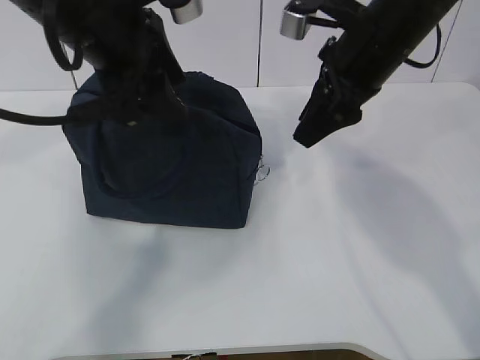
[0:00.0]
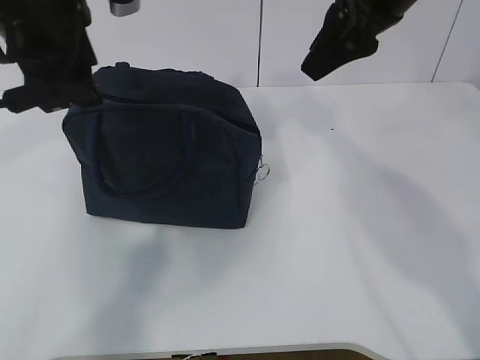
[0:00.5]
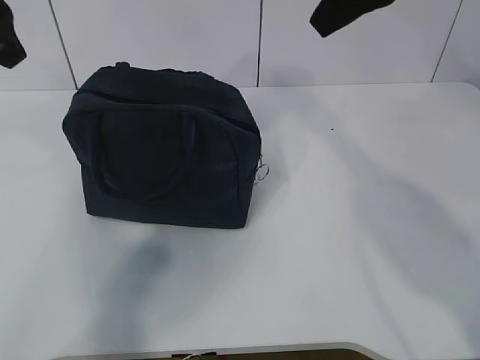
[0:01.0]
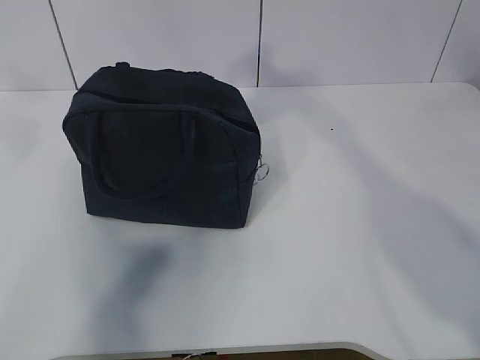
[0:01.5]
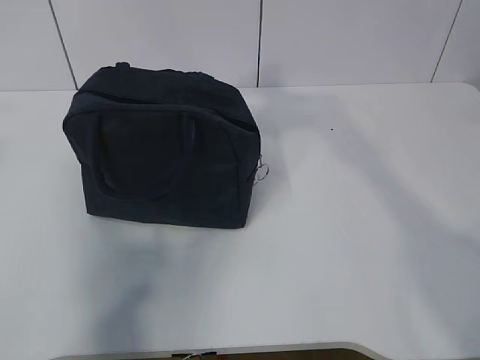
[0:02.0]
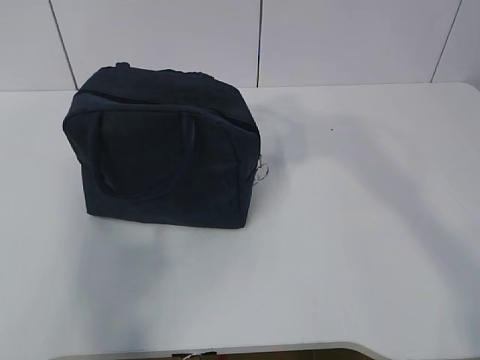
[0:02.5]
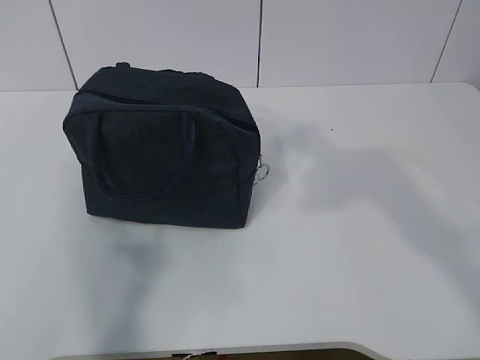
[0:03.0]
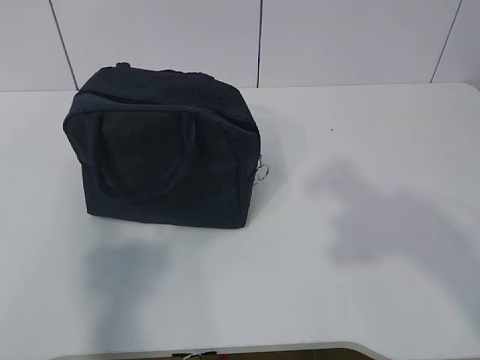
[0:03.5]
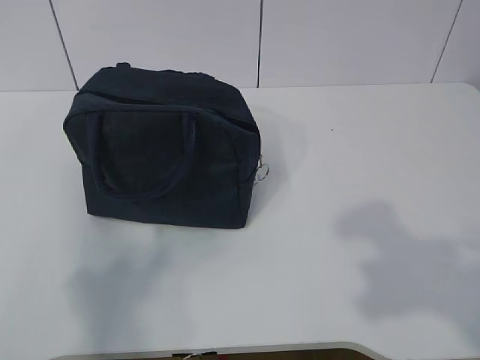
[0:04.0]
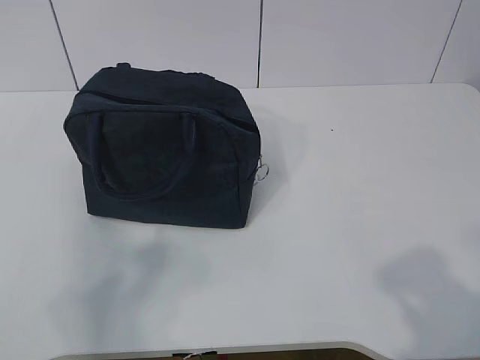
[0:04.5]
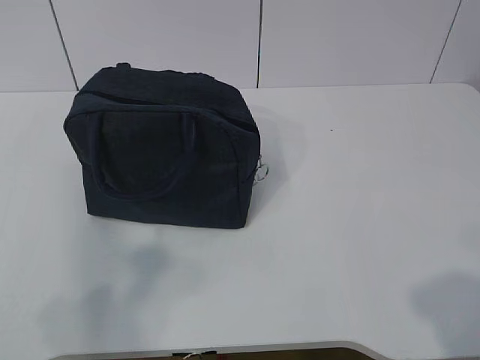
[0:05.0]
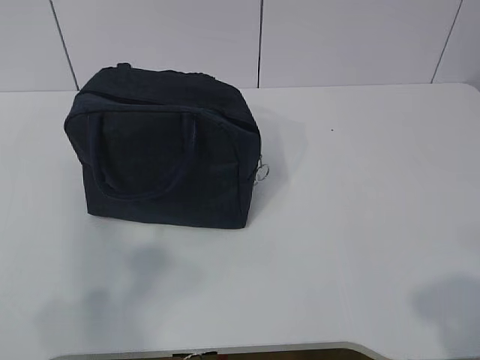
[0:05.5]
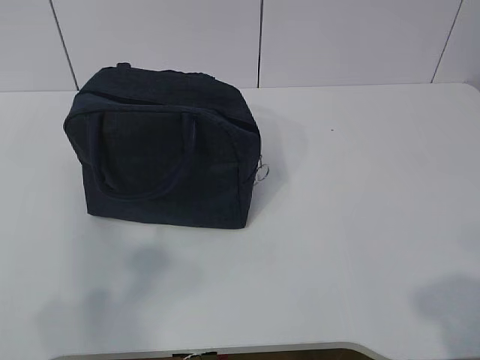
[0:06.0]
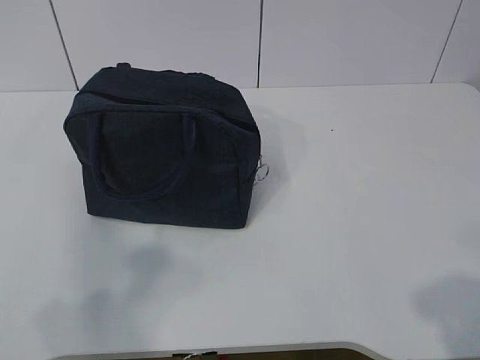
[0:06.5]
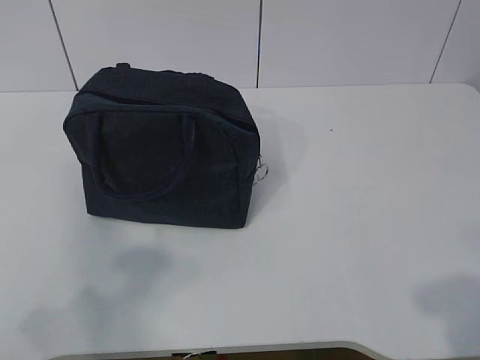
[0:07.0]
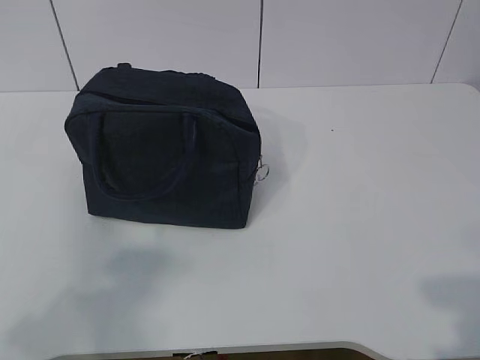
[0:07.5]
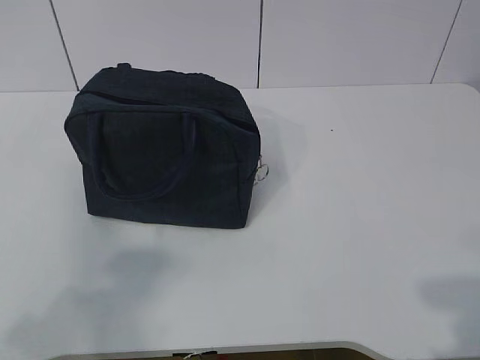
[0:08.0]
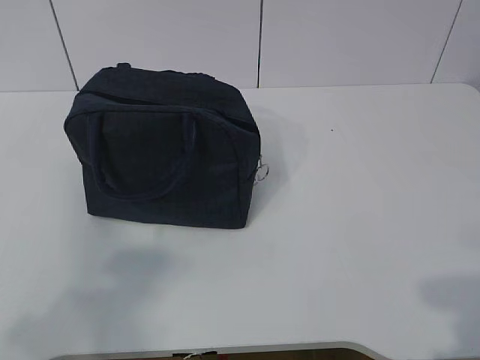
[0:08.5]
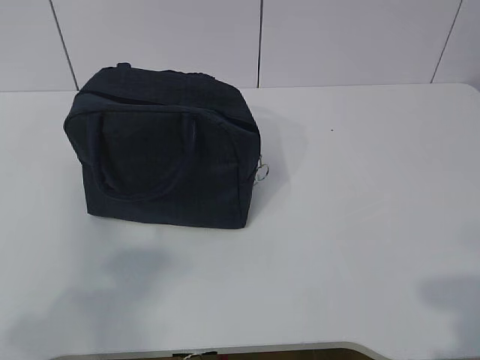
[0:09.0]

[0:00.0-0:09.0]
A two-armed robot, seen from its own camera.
0:00.0 to 0:02.0: The right gripper heads upward and backward, covering roughly 20 cm. Meanwhile the left gripper moves to the left, upward and backward, approximately 25 cm.
0:02.0 to 0:04.5: Both grippers move backward and downward, approximately 25 cm.

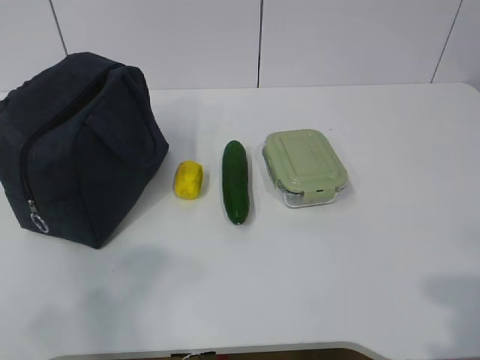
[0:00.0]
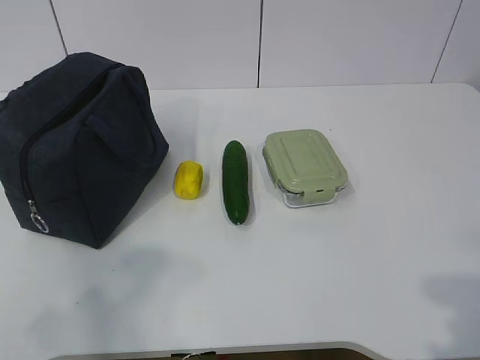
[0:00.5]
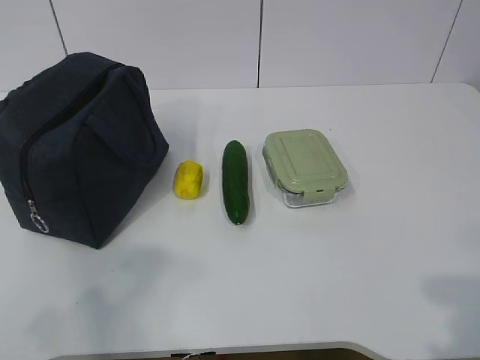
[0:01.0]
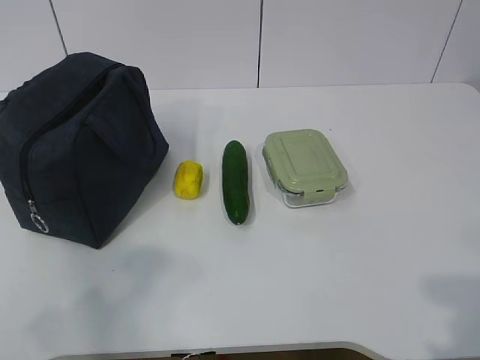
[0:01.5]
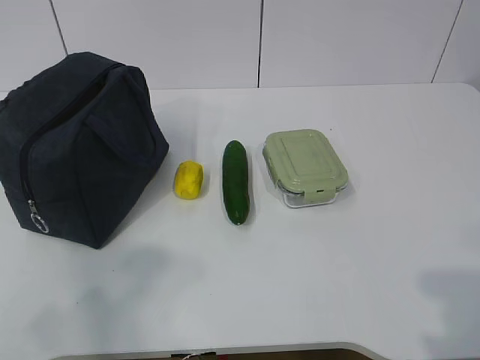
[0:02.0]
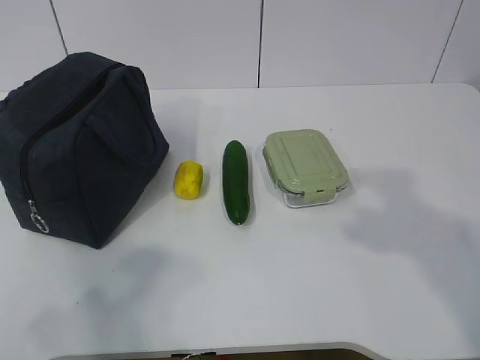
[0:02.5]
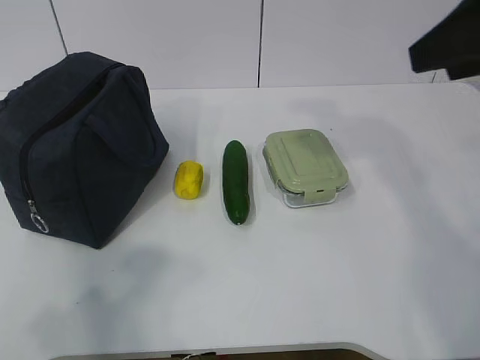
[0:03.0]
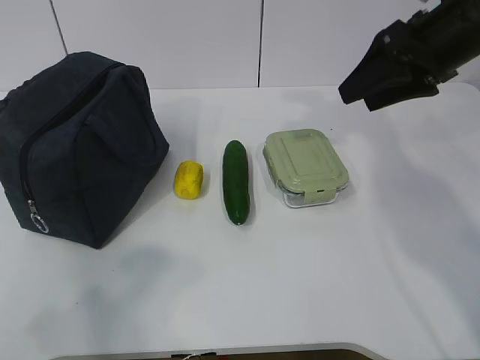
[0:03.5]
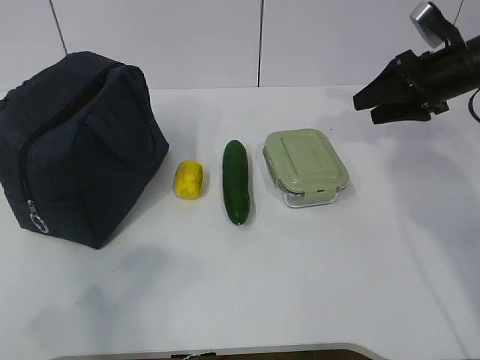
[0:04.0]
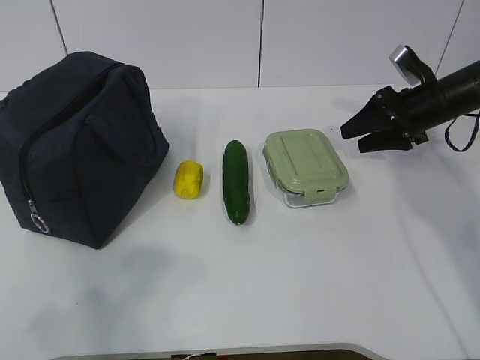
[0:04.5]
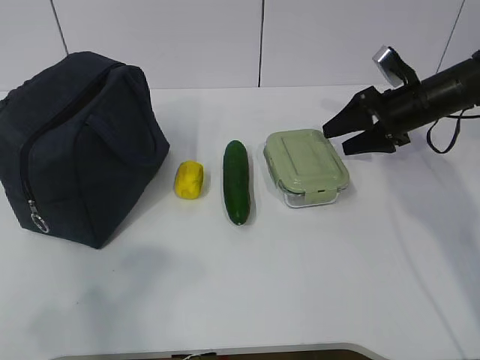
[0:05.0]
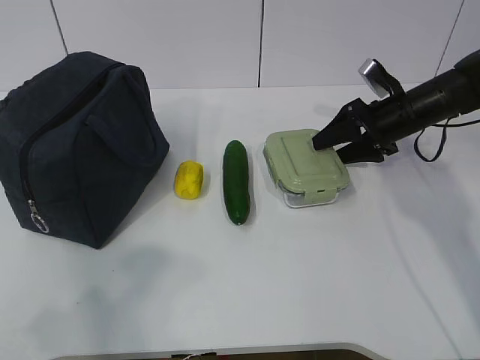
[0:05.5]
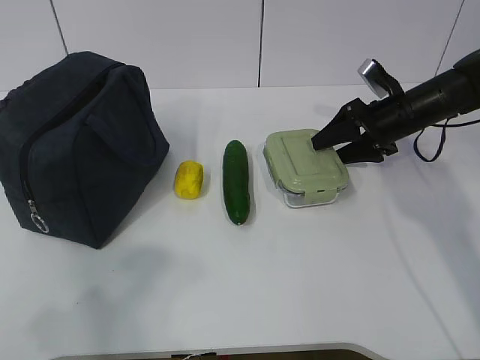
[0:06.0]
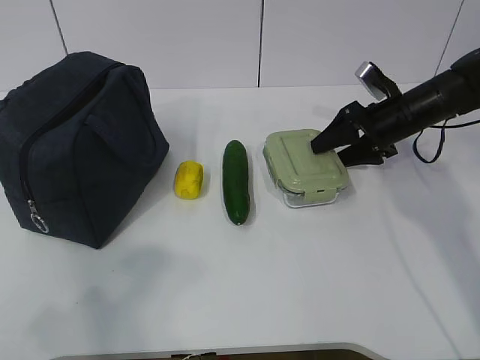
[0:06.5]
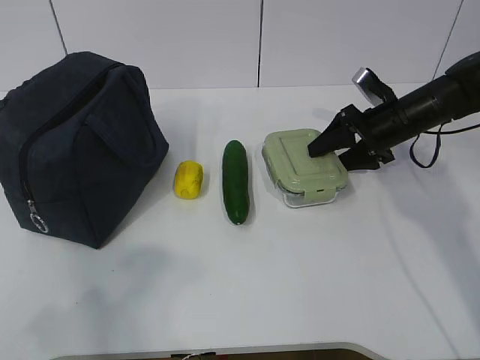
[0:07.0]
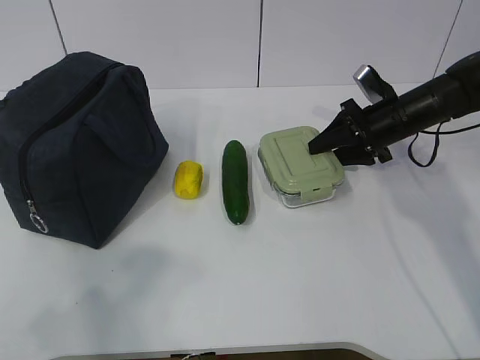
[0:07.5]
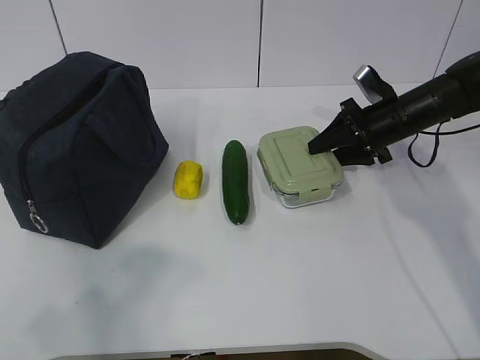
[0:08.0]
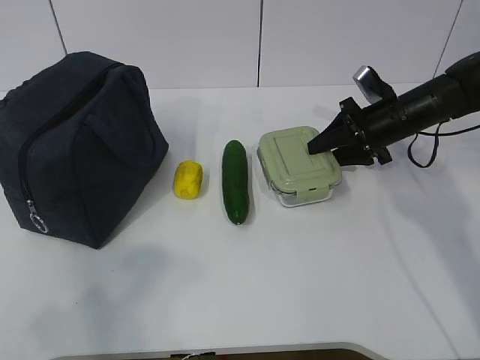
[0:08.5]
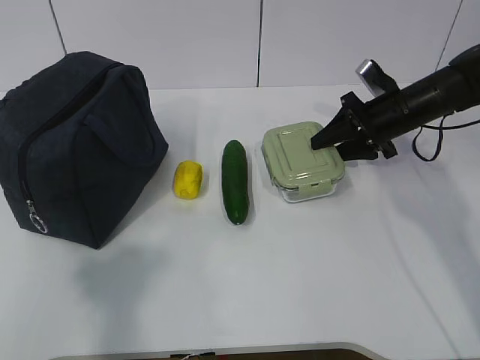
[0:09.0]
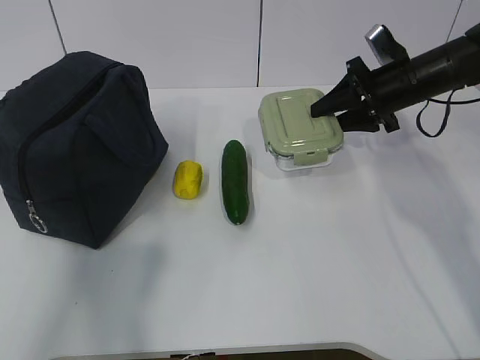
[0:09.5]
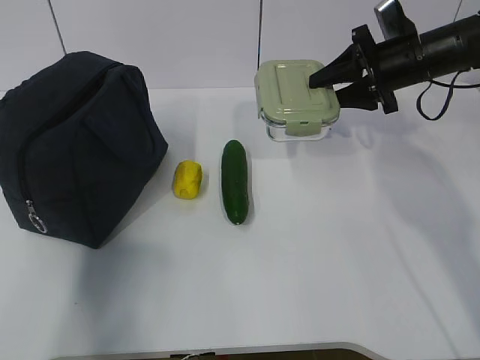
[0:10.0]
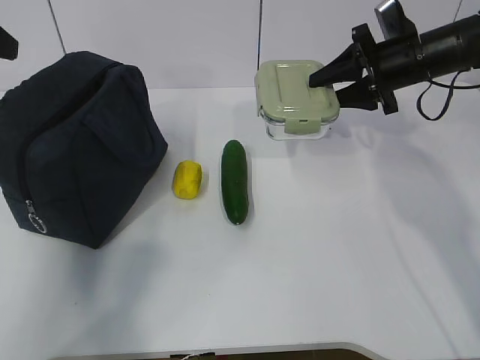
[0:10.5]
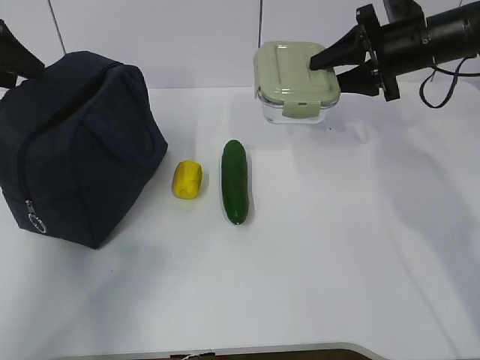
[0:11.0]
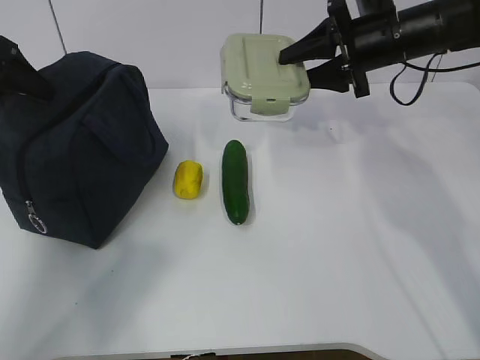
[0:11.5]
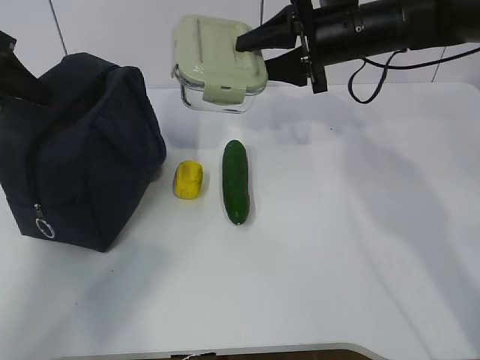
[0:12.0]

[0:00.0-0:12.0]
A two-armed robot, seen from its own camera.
Step, 0:00.0 to 0:07.0: Grab the lunch box with your right hand.
Step, 0:07.5 to 0:10.5: Grab the lunch bag with your left hand.
0:02.0 to 0:04.0: The right gripper travels forward by about 50 cm.
0:04.0 to 0:06.0: The right gripper goes approximately 10 cm downward.
0:06.0 to 0:08.0: The grippers move only a little.
0:08.0 to 0:10.0: The right gripper is displaced upward by approximately 10 cm; the left gripper heads forward, covering some 25 cm.
0:10.0 to 0:12.0: The right gripper goes about 10 cm to the left, while the left gripper is displaced forward and downward by approximately 20 cm, and closes.

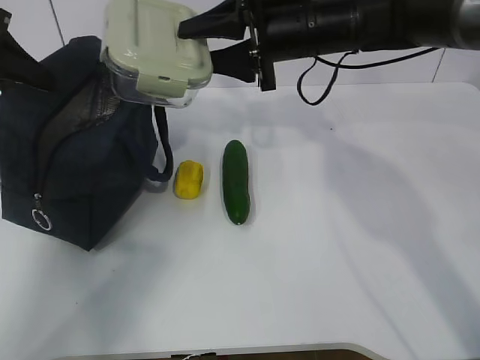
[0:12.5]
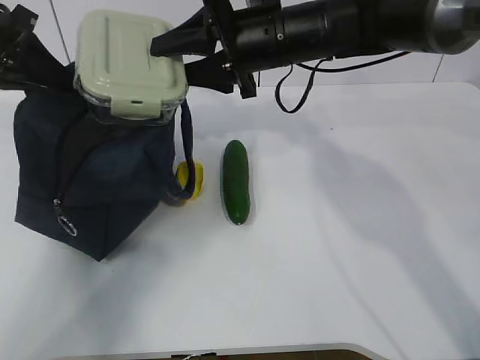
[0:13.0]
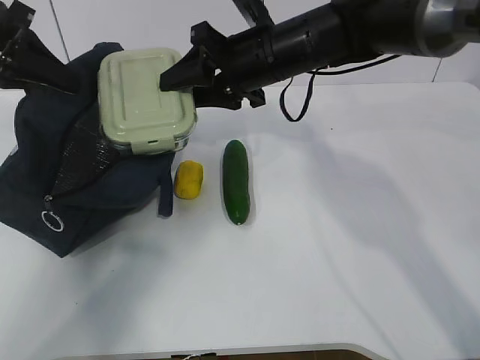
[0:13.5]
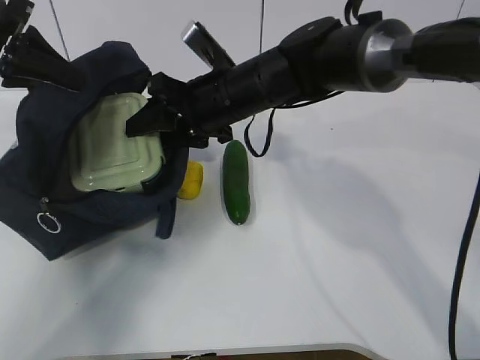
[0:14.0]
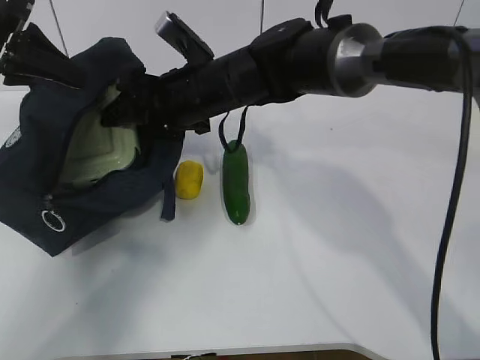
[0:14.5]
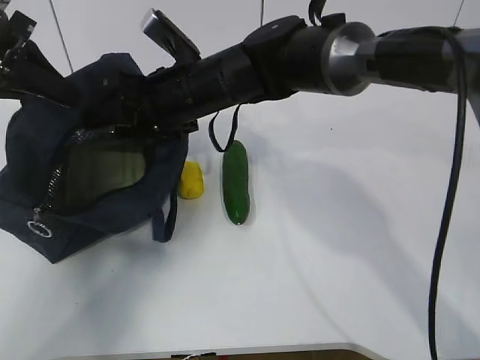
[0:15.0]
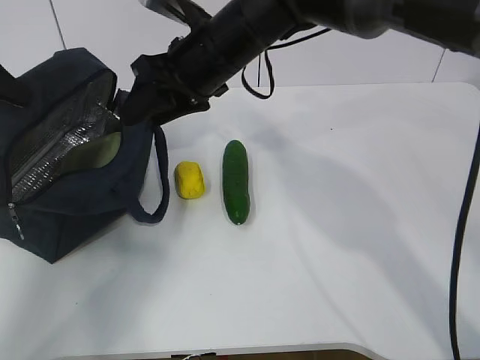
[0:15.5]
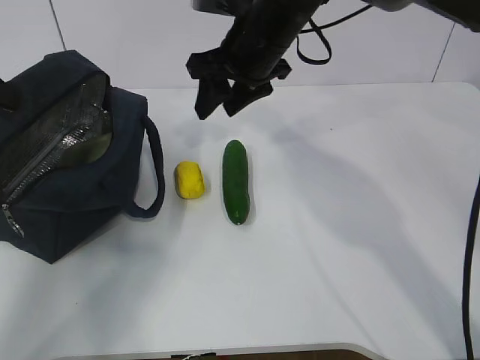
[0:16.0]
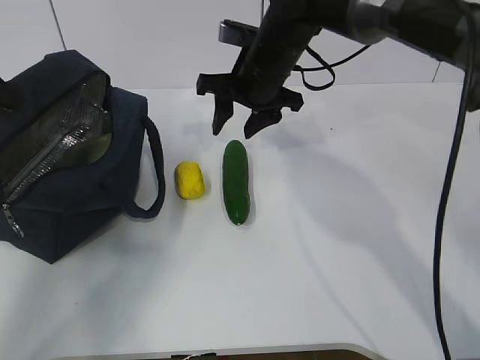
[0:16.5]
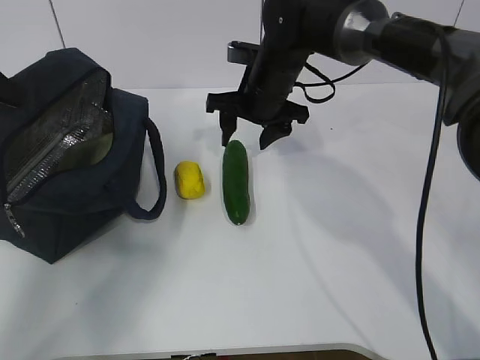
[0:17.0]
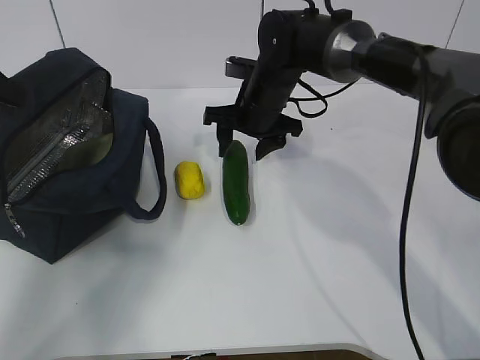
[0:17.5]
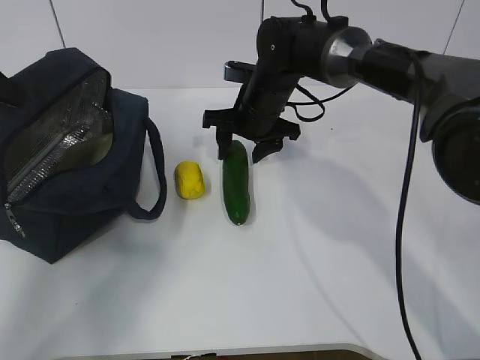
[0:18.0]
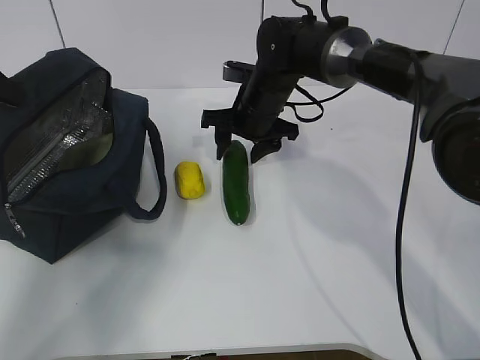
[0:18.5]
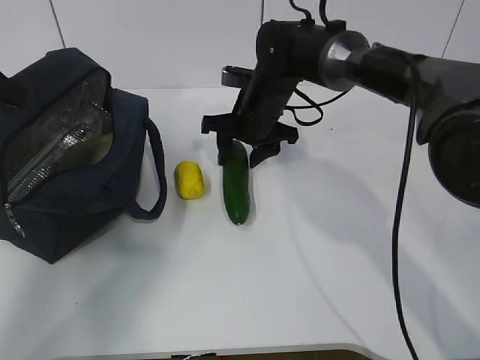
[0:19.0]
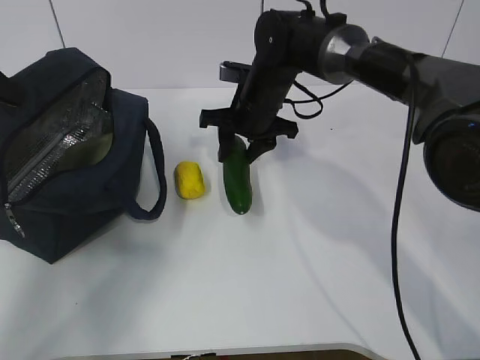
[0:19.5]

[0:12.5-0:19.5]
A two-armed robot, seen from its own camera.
Step, 0:13.0 to 0:16.0: Grab the cucumber with your right hand.
Step, 0:16.5 to 0:18.5: Place it into the bag with your right hand.
0:12.5 to 0:14.5: The right gripper travels to the left and downward by approximately 15 cm.
0:14.5 to 0:16.0: The right gripper shifts some 10 cm to the right and upward, while the left gripper goes about 5 cm to the left.
0:16.0 to 0:17.5: The right gripper travels downward by some 10 cm.
0:17.5 to 0:19.5: The grippers stay close to where they were, moving slightly.
